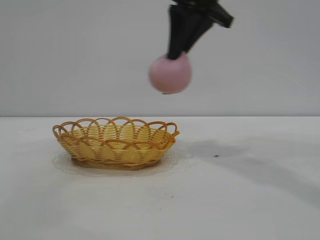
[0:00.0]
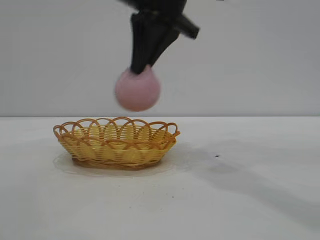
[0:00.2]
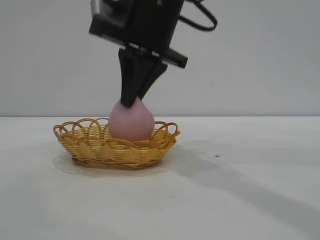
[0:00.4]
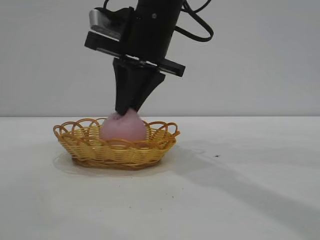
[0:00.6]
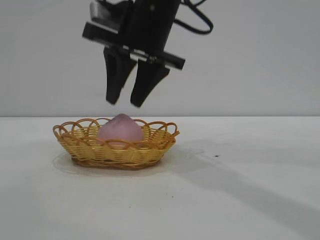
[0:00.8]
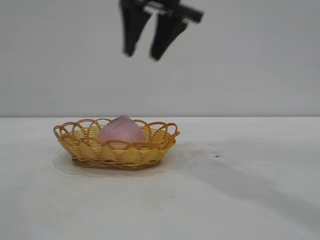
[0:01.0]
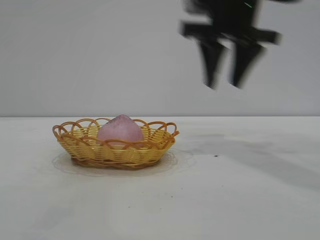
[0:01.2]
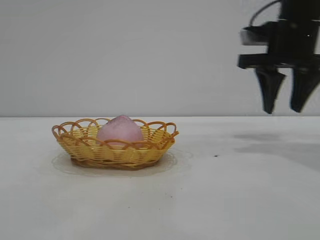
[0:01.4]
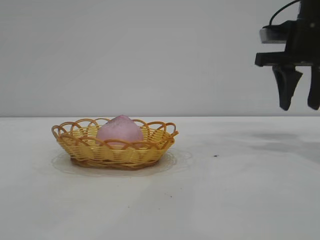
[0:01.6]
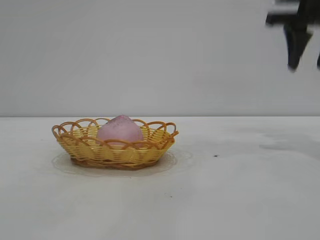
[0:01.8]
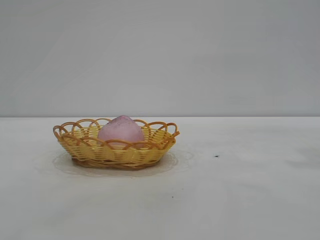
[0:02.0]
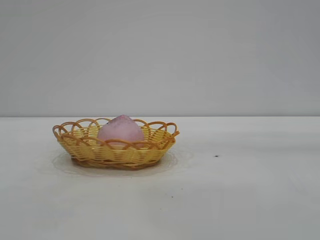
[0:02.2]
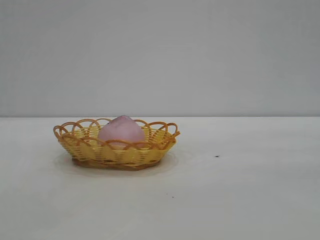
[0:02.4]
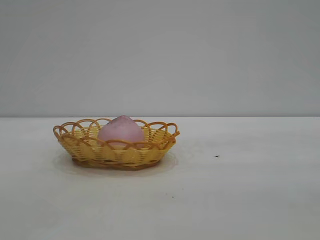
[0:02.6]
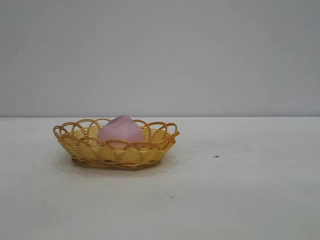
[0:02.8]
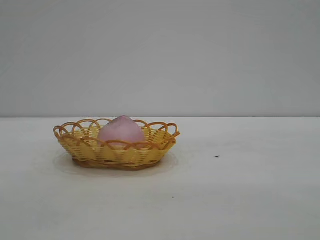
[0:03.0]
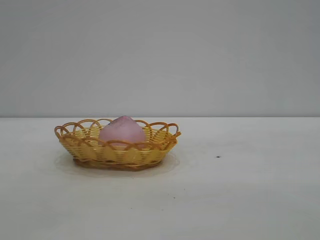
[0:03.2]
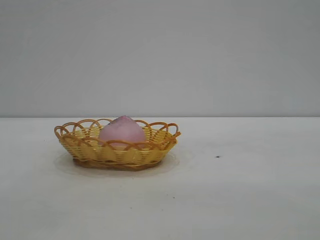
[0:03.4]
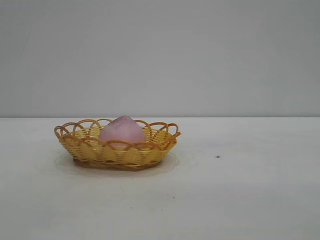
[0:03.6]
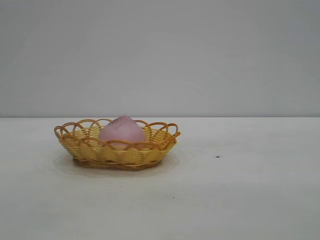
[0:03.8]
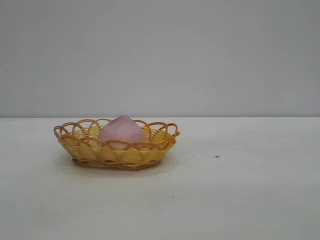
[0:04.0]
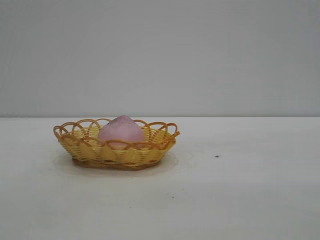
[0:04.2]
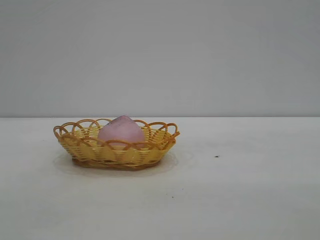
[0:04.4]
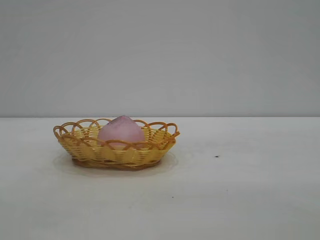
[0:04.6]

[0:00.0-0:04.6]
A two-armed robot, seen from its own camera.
Task of the whole recording: pick up the peach and put it into the basket.
Step, 0:00.0 to 0:01.0: place the peach into the basket.

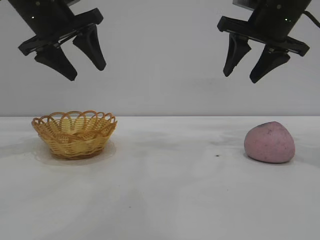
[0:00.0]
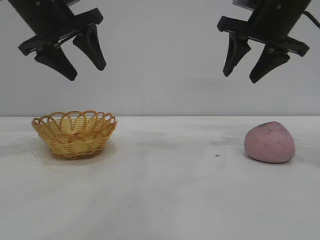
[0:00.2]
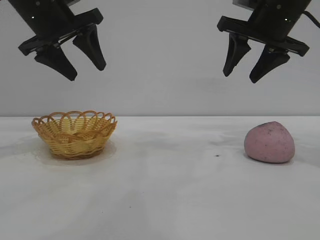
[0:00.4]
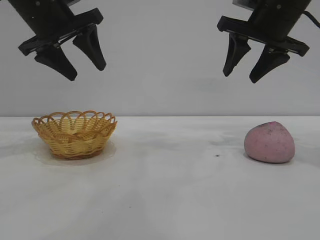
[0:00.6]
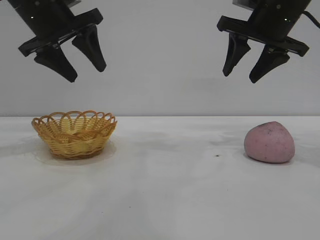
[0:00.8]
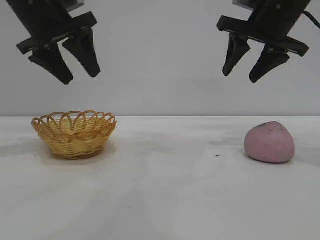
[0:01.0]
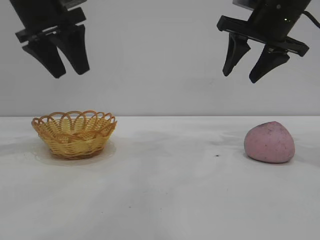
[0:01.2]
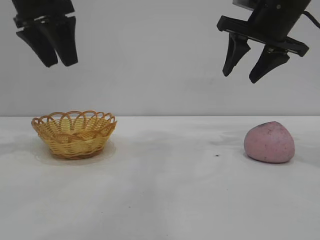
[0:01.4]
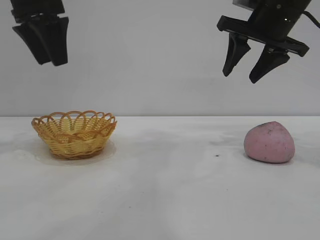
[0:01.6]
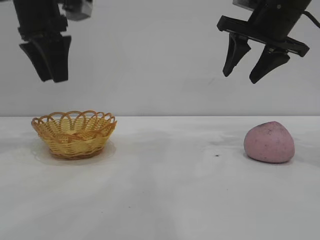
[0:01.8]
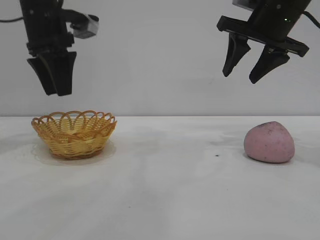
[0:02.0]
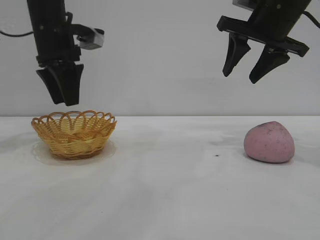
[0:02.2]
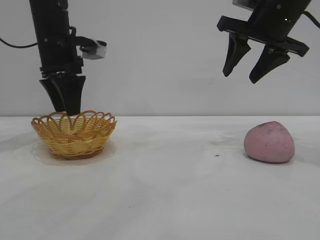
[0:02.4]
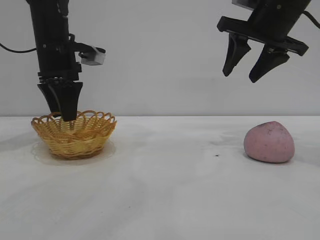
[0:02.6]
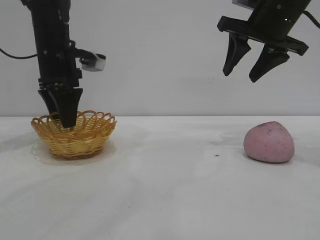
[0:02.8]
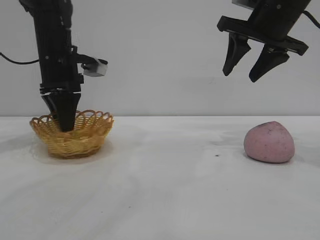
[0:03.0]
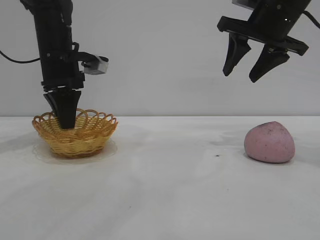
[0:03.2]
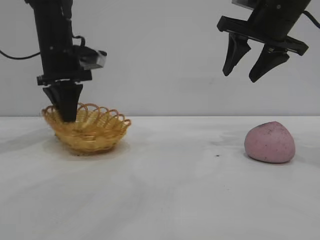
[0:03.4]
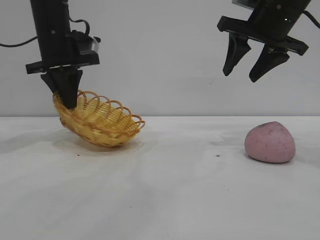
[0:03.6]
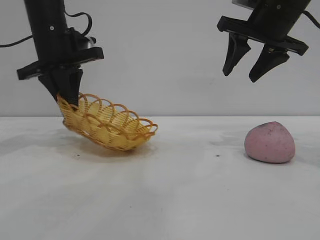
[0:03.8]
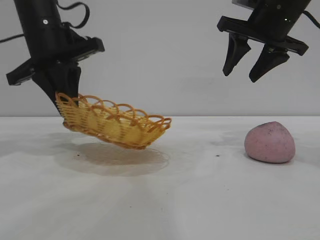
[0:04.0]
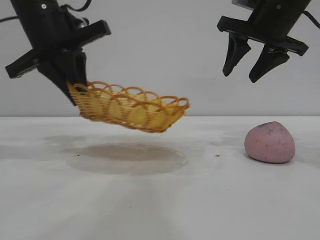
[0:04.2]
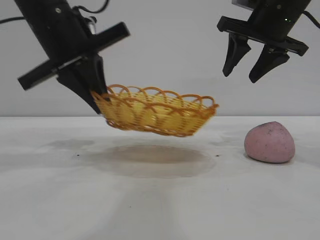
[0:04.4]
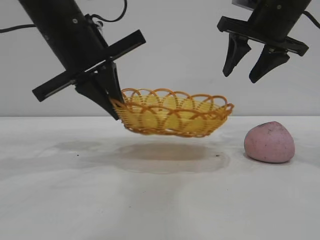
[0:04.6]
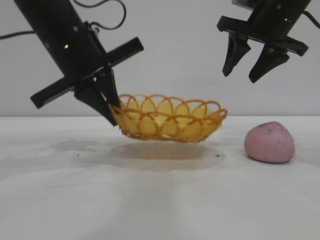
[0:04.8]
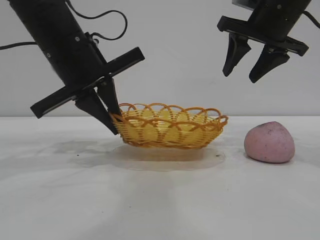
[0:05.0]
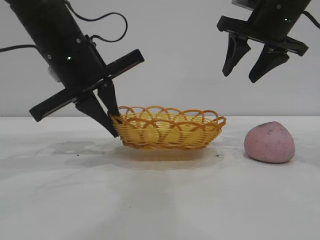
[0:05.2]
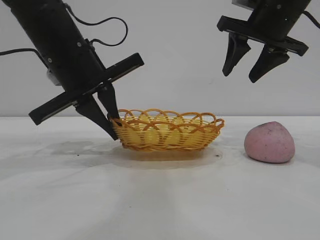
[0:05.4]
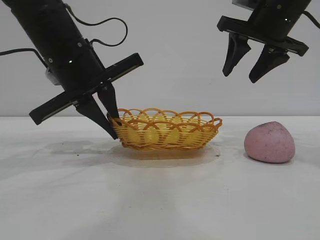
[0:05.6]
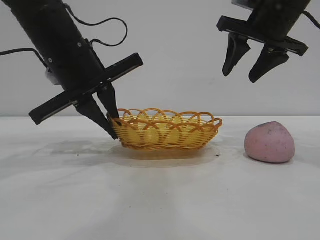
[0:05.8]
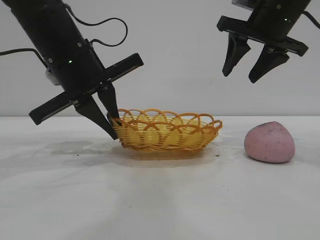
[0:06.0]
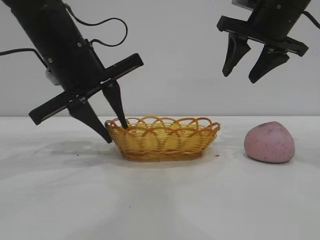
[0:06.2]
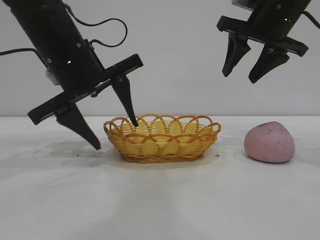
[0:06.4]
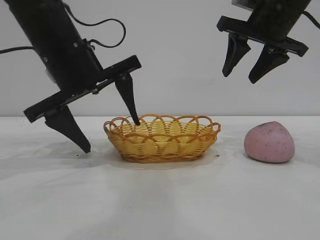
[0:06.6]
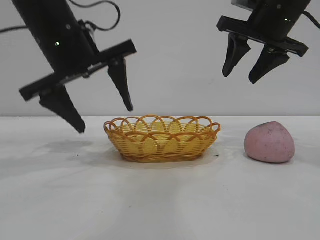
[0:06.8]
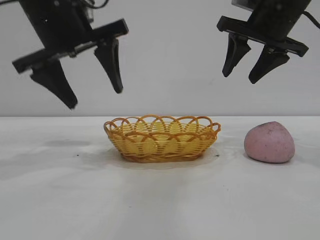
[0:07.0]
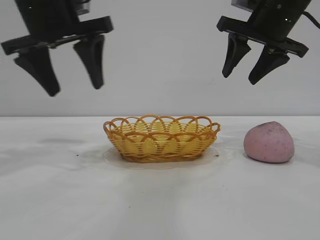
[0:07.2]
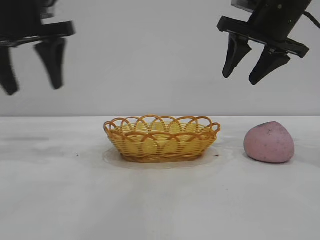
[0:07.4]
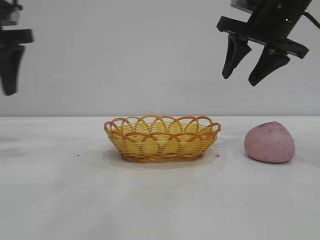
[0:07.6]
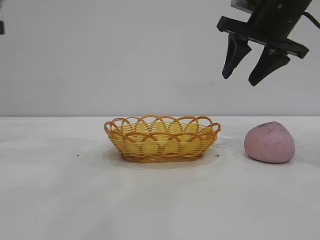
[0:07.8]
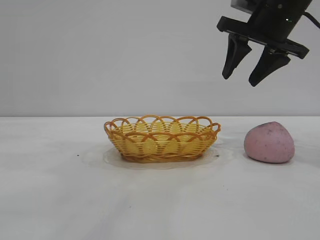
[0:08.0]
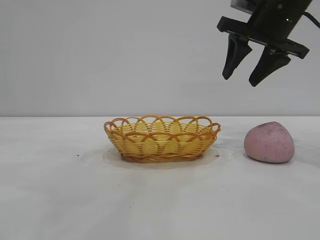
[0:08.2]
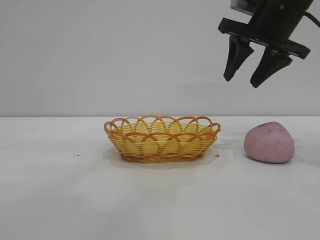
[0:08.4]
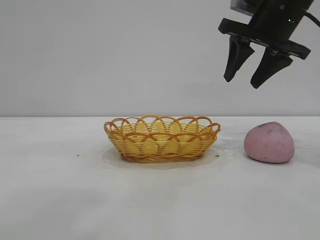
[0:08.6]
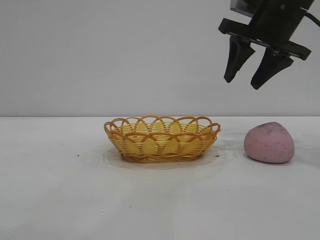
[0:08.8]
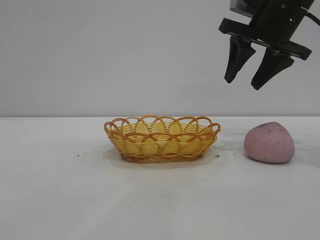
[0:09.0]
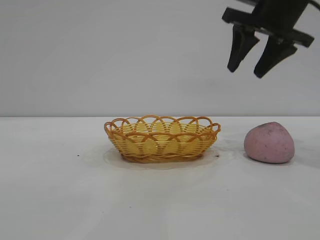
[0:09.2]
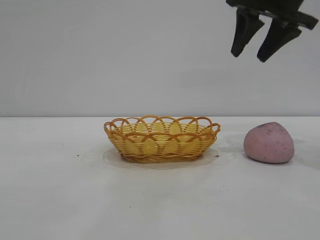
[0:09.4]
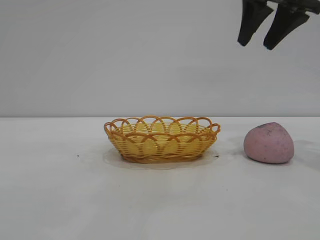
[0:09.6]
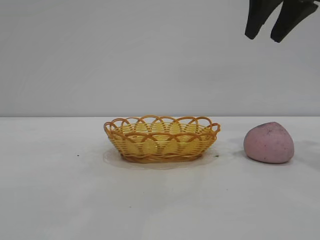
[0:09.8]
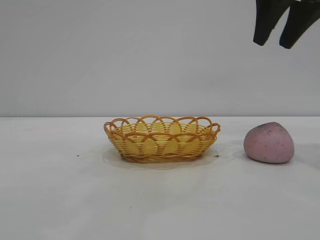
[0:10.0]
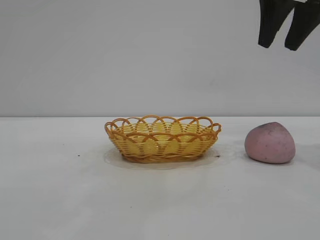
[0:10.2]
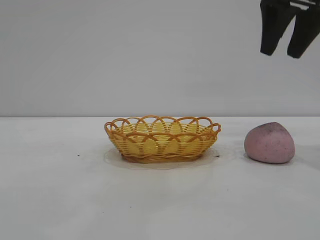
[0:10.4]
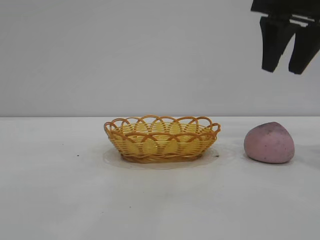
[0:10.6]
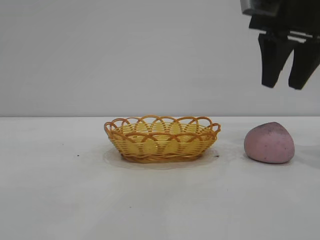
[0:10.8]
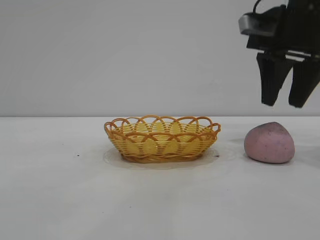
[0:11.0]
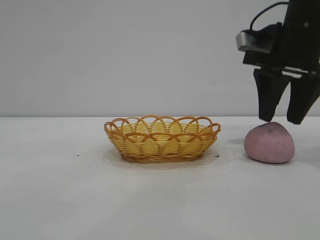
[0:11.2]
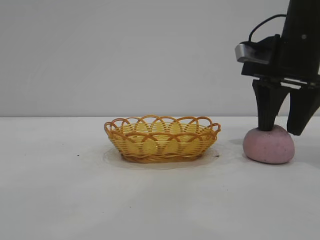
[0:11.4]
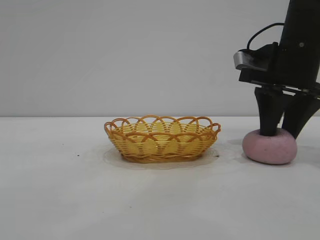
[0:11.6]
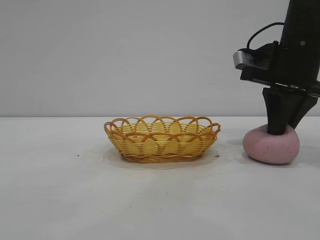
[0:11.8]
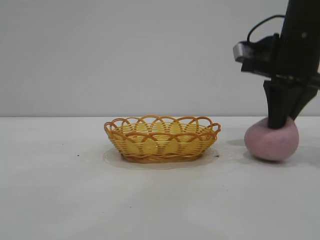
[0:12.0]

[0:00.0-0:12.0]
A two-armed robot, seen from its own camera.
Task of the whole recording: pick up the peach and put it into the basket.
Step, 0:00.0 to 0:06.8: Move the basket to the center of view.

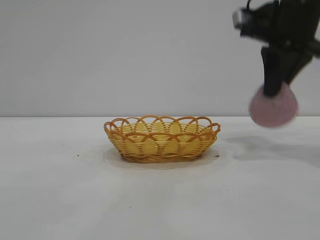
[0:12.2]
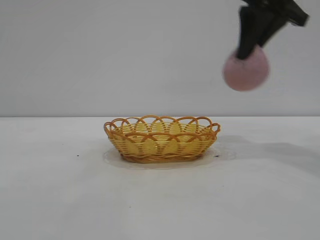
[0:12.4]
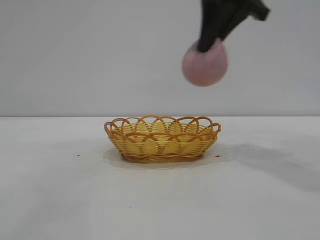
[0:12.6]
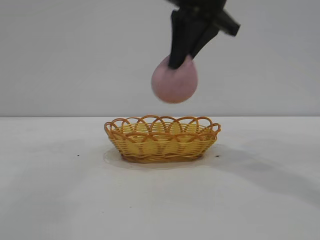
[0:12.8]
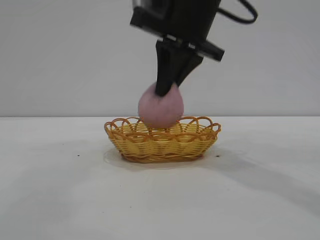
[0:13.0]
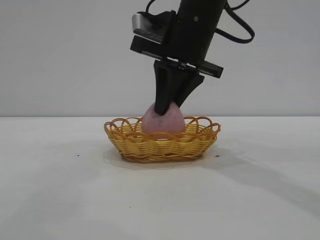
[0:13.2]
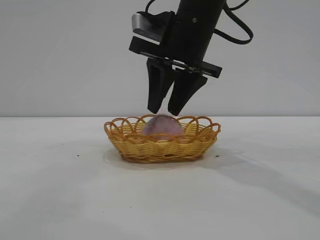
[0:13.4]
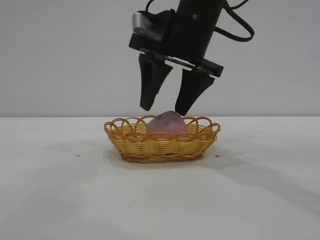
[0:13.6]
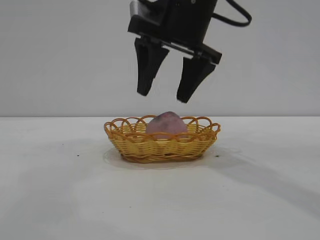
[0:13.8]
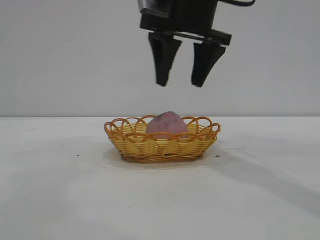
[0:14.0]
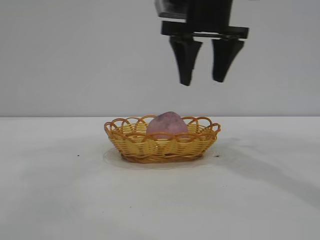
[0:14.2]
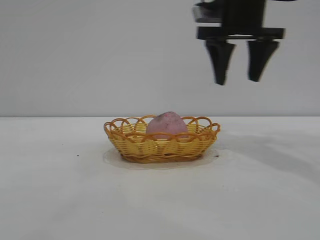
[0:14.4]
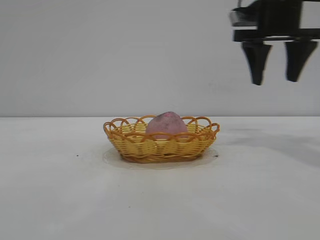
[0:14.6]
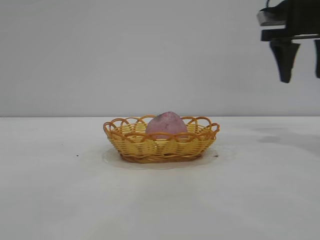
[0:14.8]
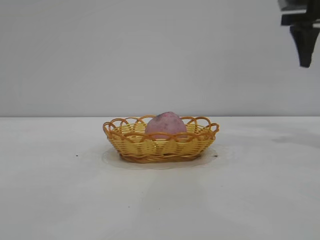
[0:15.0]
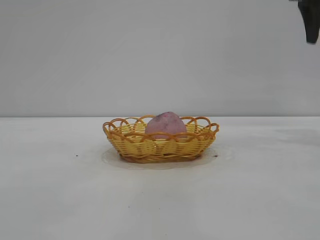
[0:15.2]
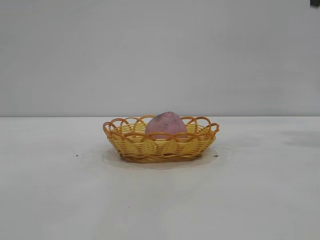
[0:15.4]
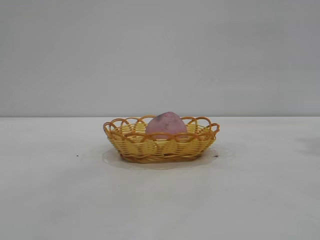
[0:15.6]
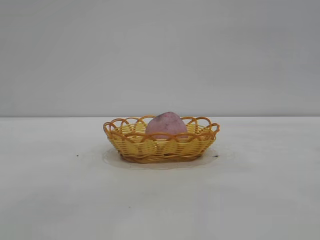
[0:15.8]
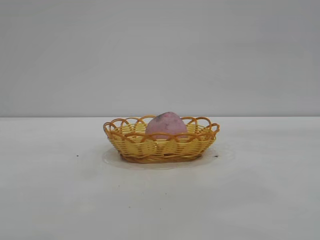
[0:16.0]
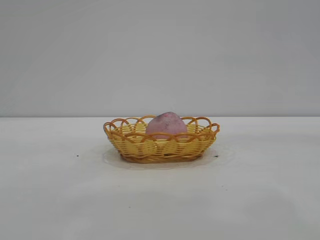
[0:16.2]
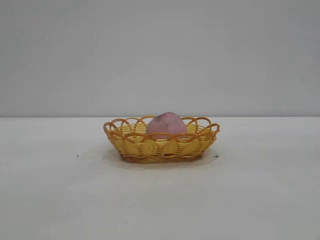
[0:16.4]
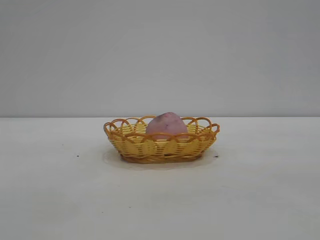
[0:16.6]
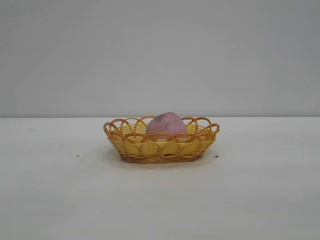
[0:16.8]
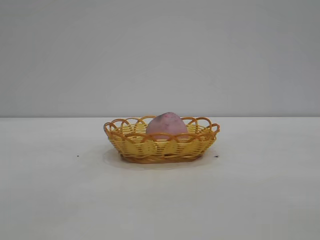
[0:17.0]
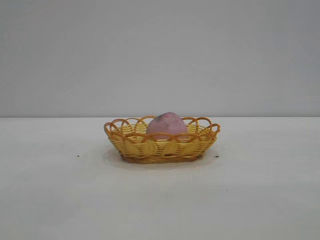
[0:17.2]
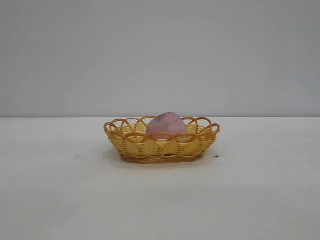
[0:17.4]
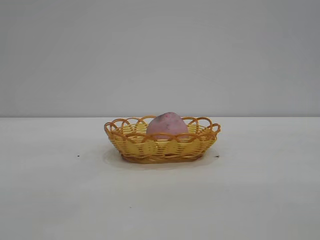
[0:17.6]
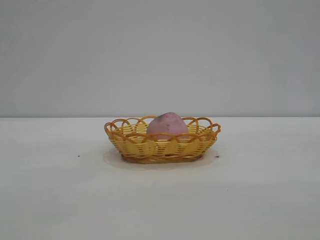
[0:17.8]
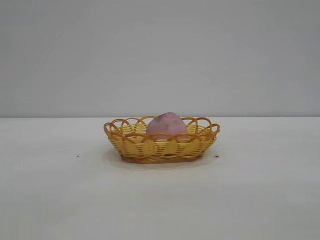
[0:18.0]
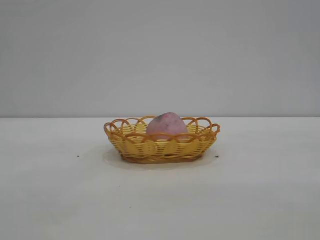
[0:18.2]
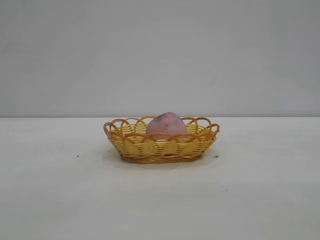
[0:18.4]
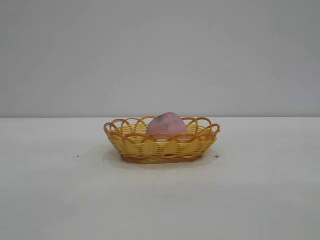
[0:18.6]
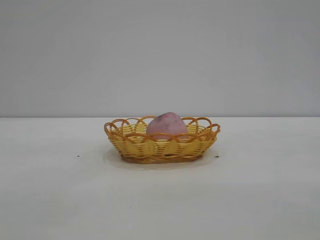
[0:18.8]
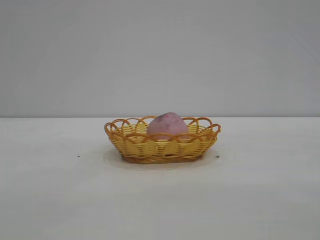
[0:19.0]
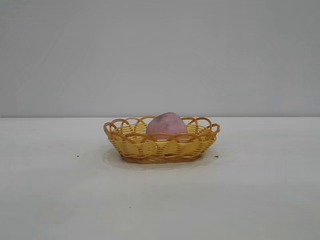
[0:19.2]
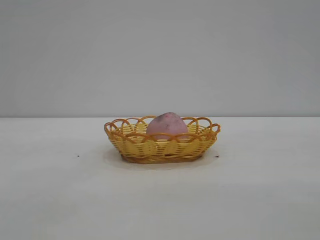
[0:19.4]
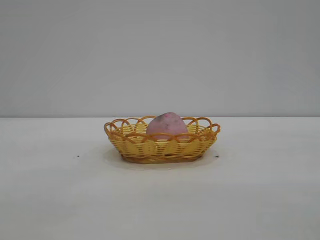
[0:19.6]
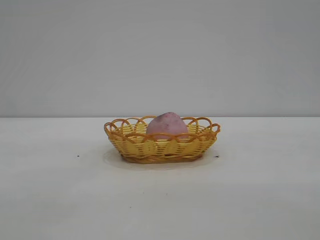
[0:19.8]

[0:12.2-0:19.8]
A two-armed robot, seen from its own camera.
Task of the whole recording: pick up the peach and put it into the basket.
Step, 0:12.2 to 0:13.8: place the peach into the basket.
